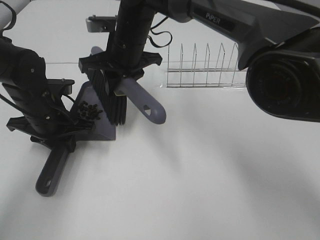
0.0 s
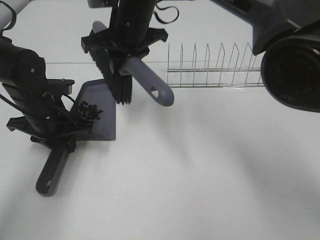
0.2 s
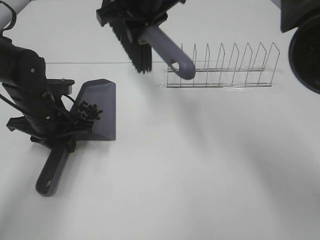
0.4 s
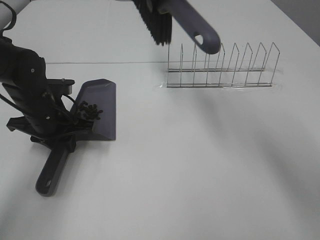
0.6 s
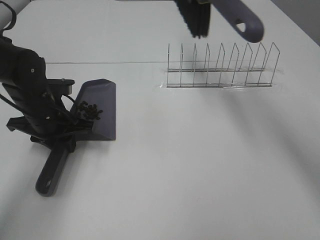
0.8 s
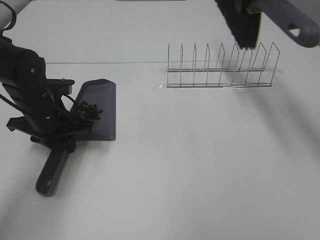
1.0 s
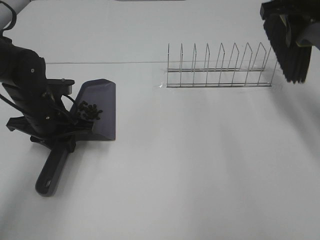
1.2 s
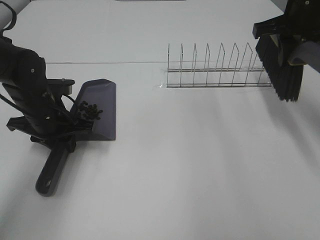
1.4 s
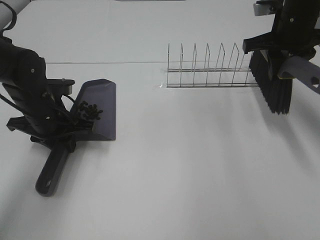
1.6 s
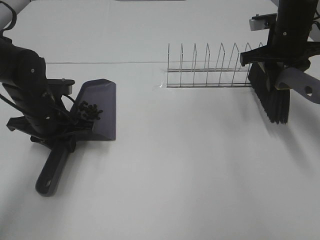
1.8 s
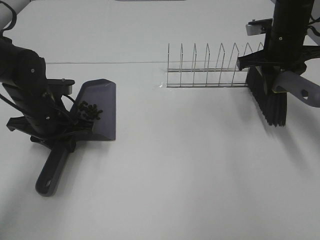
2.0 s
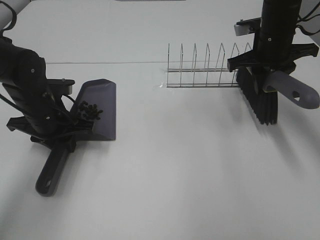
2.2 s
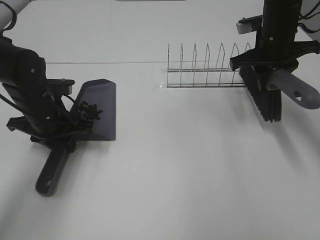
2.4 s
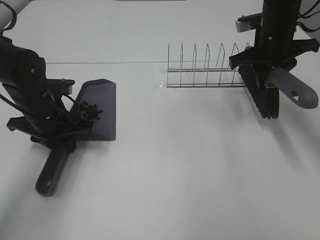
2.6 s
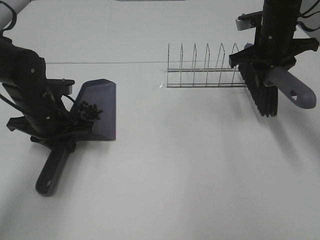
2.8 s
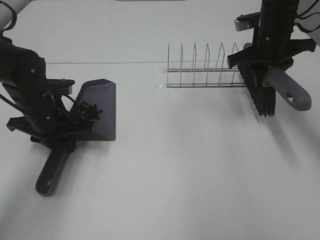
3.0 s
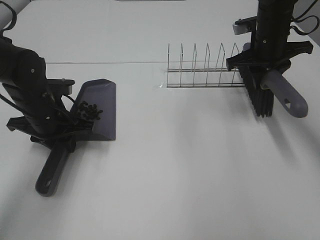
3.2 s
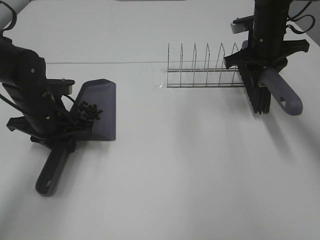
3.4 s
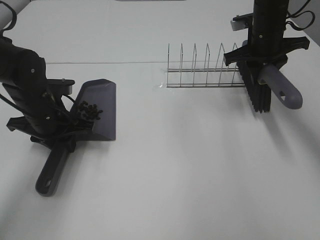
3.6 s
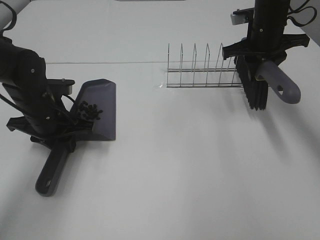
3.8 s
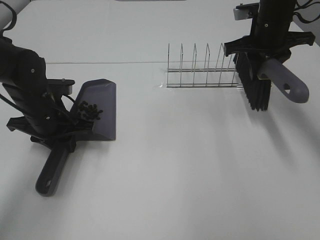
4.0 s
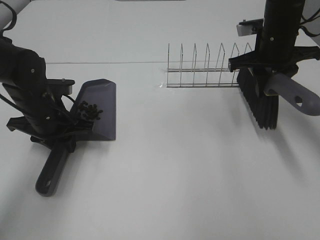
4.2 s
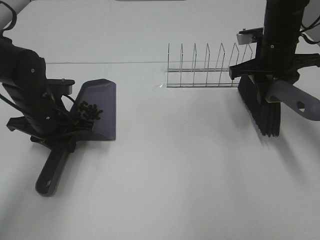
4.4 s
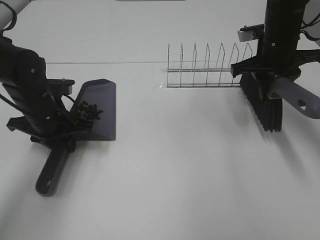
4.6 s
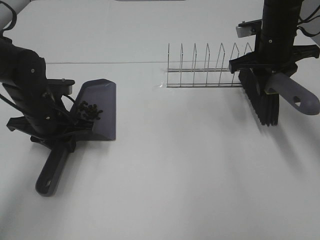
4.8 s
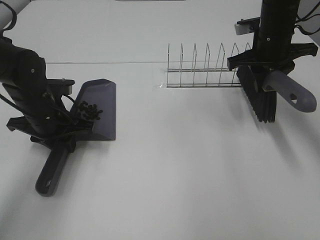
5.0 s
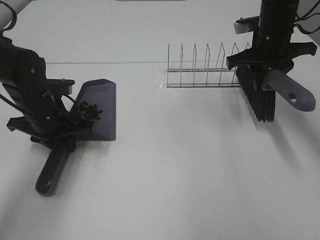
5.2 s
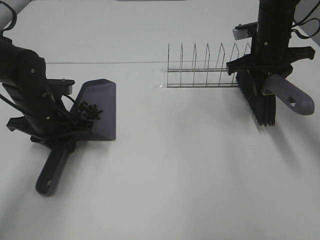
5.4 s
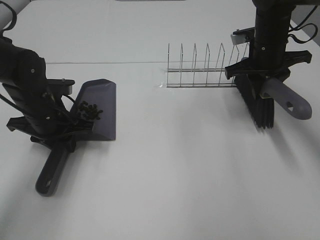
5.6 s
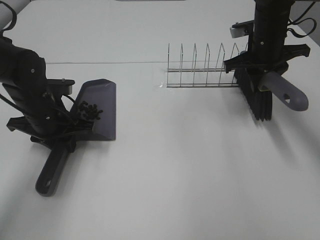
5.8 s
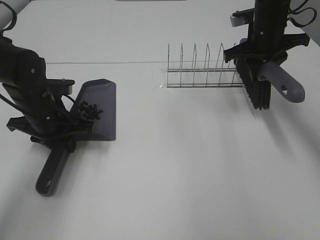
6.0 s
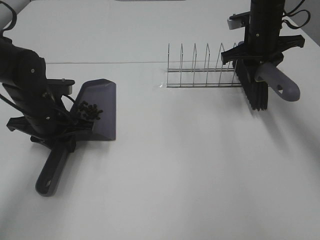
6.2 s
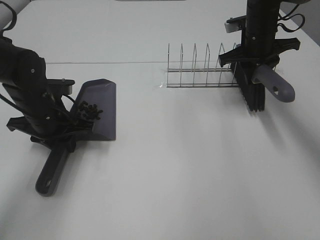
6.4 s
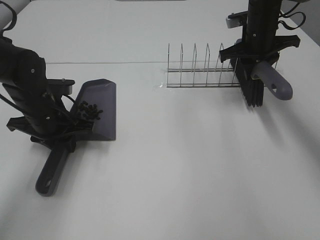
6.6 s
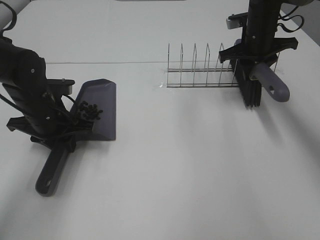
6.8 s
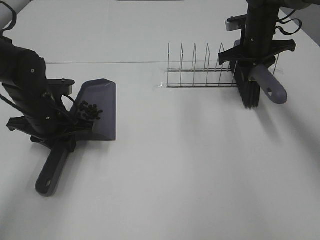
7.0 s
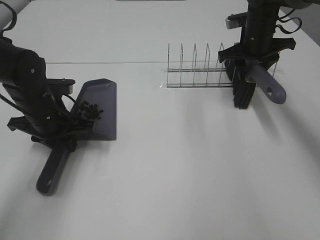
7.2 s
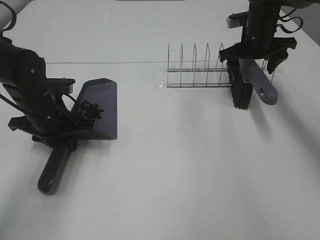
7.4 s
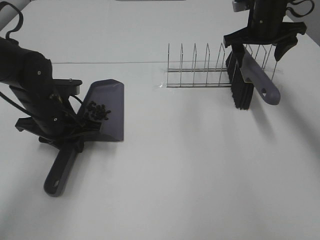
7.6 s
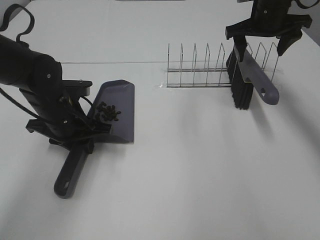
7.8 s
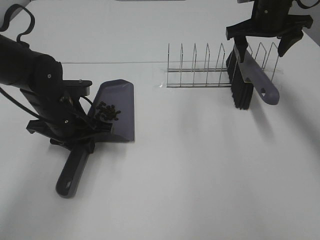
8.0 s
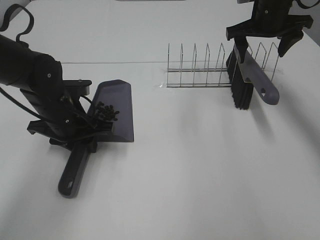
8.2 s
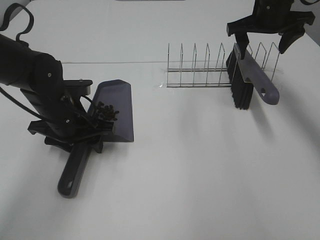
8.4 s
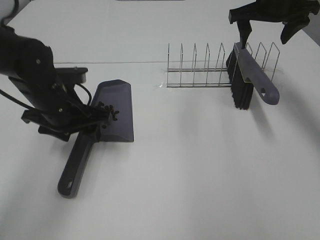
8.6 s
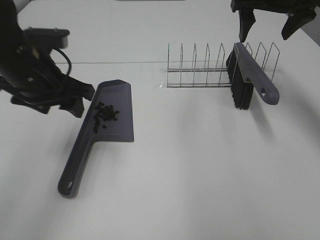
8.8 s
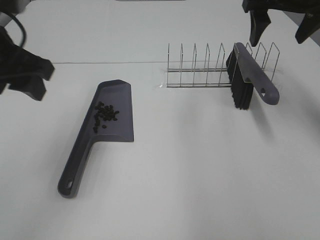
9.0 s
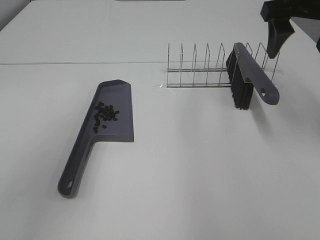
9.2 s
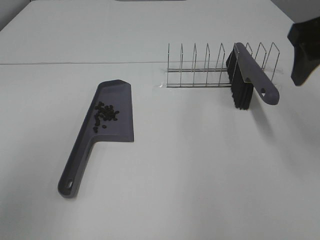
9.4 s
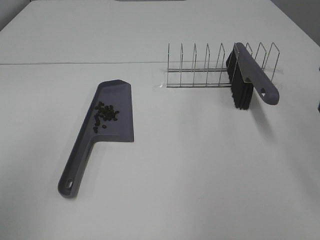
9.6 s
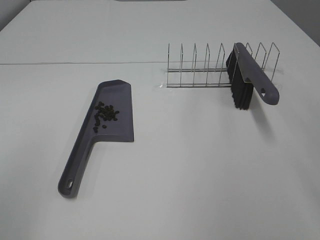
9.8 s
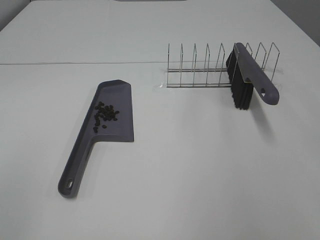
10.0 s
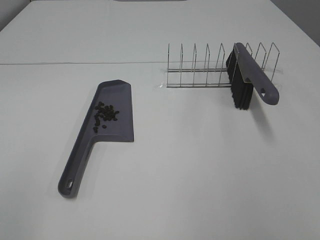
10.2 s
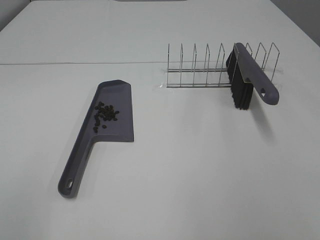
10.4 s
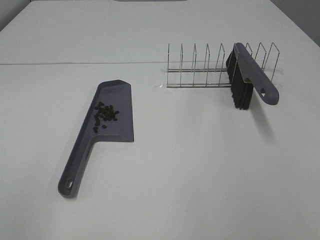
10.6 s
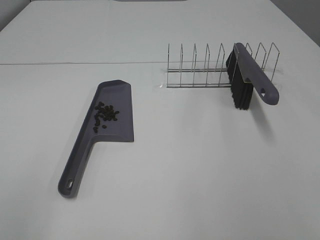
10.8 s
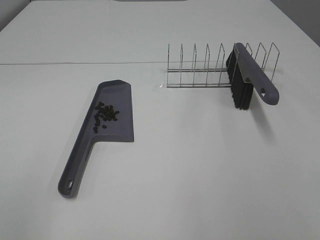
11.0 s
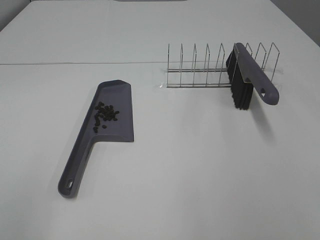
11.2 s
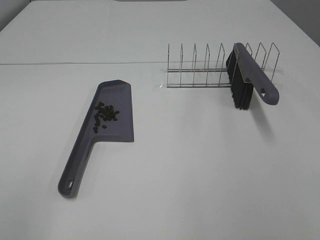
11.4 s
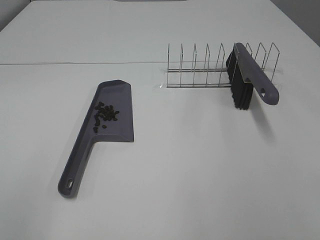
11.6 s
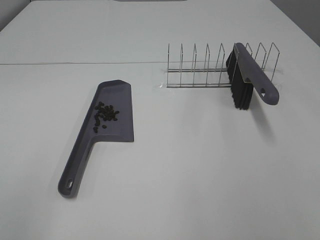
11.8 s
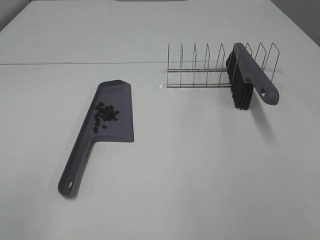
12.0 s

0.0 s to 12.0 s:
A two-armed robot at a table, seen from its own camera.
Task of the whole recording: Sweep Coffee Bean.
Step, 0.4 to 7.4 s: Right hand:place the broom on the rack.
Step, 7.6 to 8.4 s: Left hand:place the dustpan on the table.
0.0 to 1.6 s: The right gripper is displaced to the right by roughly 30 cm.
1.6 to 3.0 s: The right gripper moves about 5 cm.
3.0 to 4.4 s: The grippers move only a little.
4.4 to 6.0 s: The right gripper travels forward by roughly 5 cm.
6.0 to 7.6 s: The right gripper opens its fingers.
7.6 to 9.0 s: The left gripper moves upward, about 20 cm, and opens up, while the right gripper shifts roughly 15 cm upward and backward.
9.0 to 10.4 s: Both grippers move backward, about 30 cm.

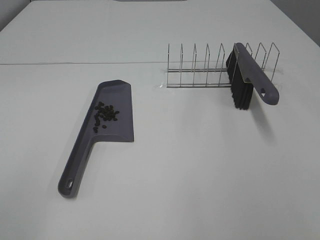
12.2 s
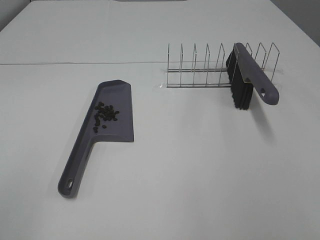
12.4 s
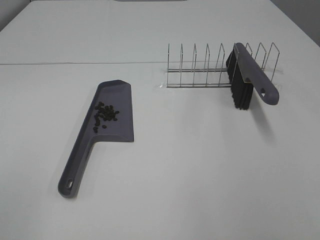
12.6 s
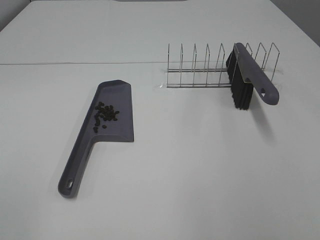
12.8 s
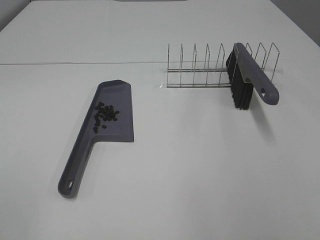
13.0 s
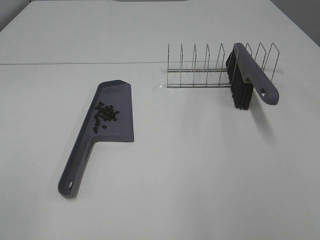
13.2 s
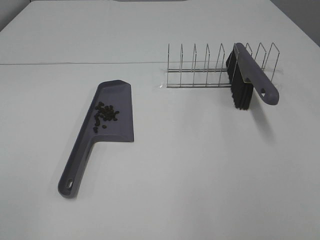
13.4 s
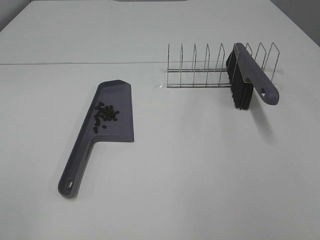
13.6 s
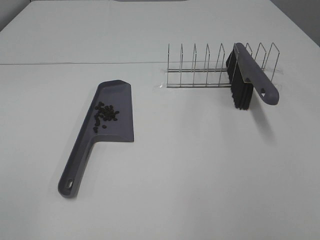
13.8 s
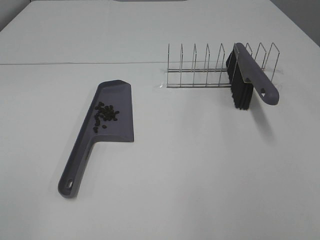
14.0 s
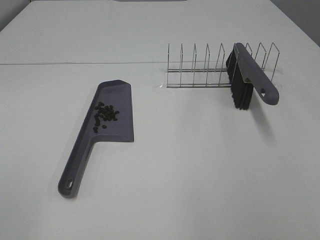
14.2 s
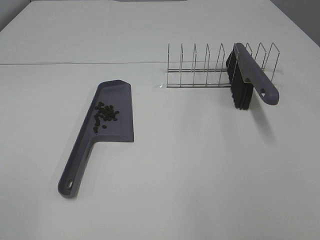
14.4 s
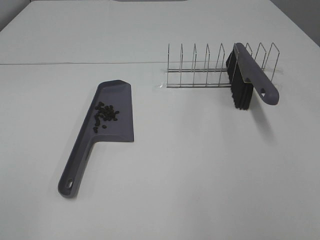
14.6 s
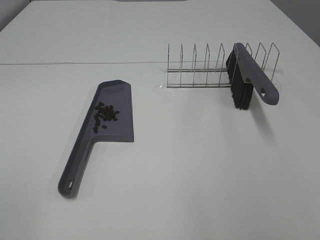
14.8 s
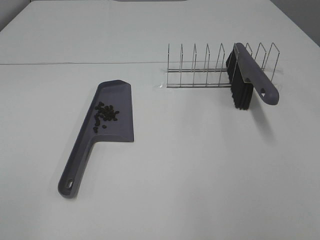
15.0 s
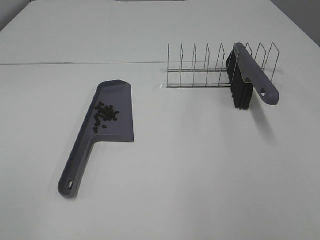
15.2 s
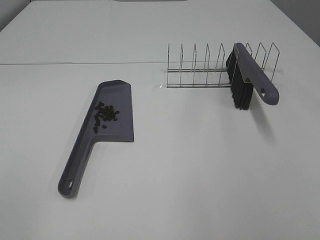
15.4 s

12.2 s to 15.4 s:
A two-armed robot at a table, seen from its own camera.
Task of the whole recording: Sweep Coffee Bean.
13.8 to 15.4 s: Both grippers stay put.

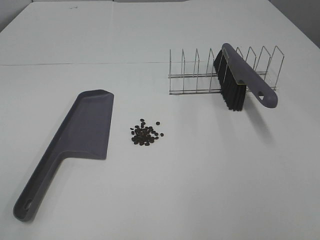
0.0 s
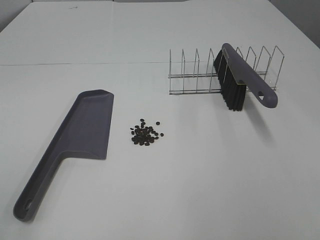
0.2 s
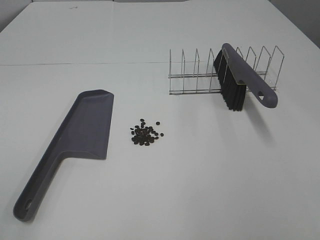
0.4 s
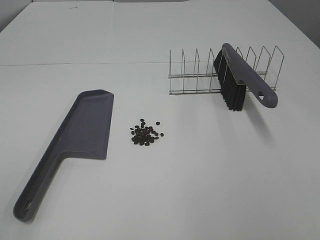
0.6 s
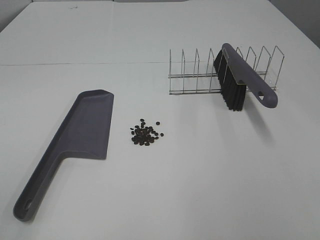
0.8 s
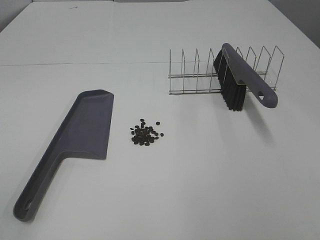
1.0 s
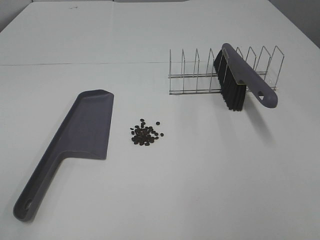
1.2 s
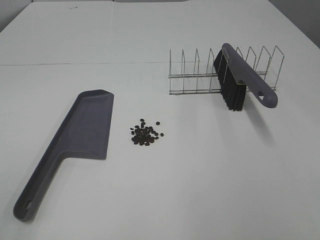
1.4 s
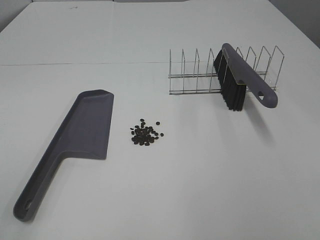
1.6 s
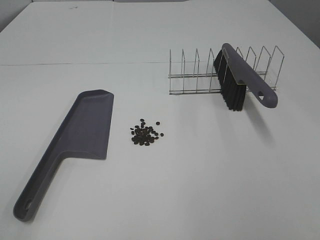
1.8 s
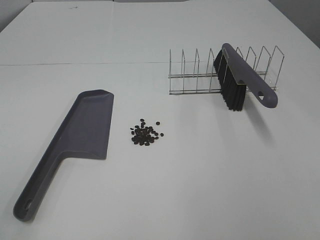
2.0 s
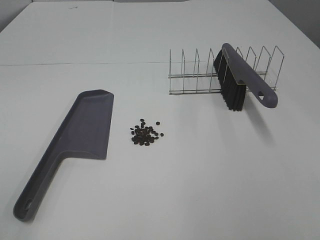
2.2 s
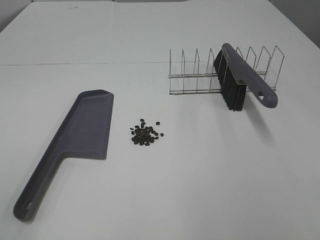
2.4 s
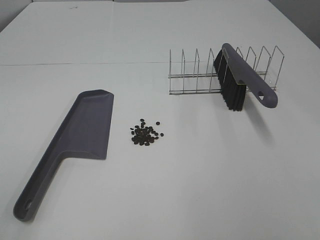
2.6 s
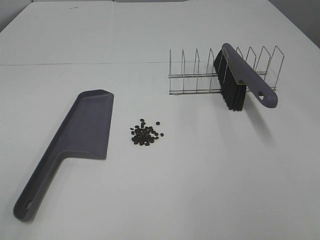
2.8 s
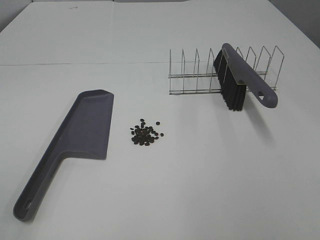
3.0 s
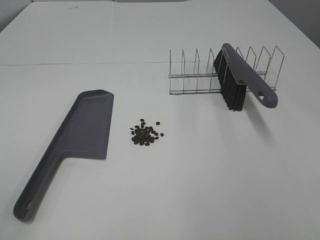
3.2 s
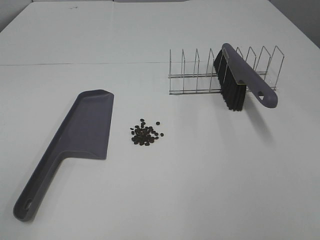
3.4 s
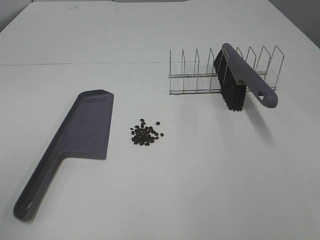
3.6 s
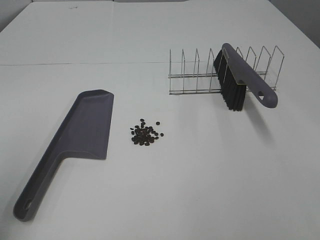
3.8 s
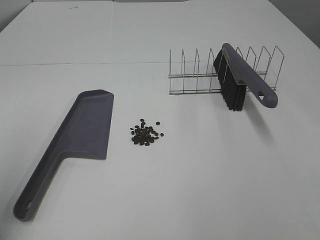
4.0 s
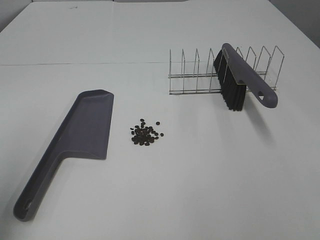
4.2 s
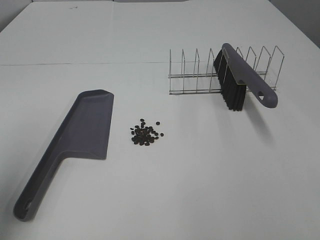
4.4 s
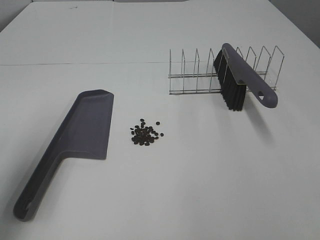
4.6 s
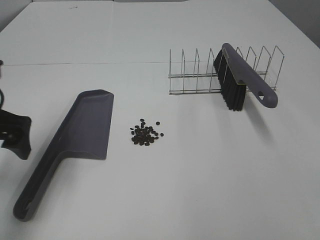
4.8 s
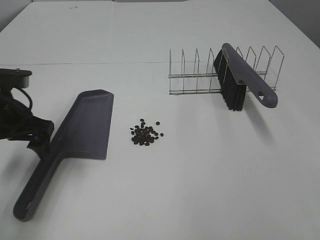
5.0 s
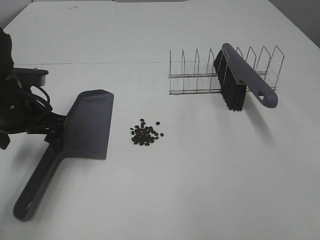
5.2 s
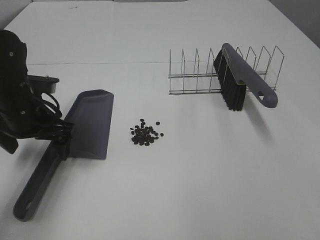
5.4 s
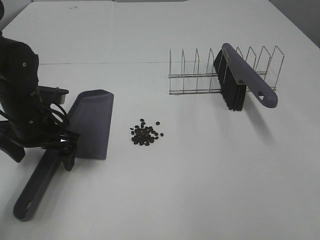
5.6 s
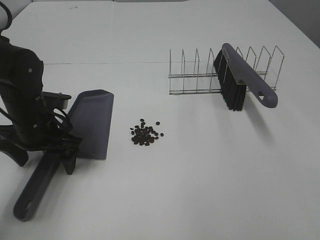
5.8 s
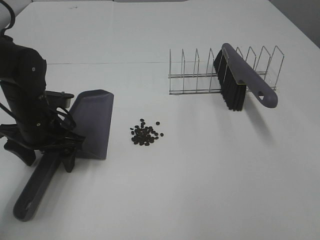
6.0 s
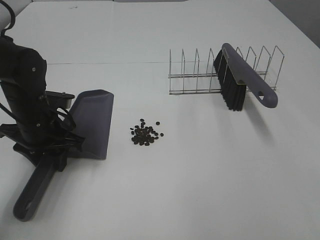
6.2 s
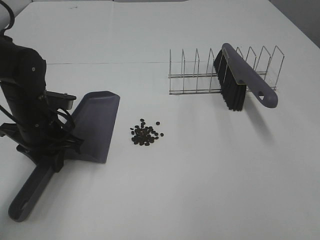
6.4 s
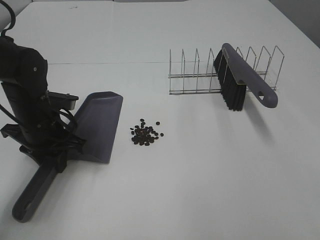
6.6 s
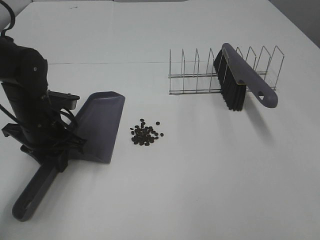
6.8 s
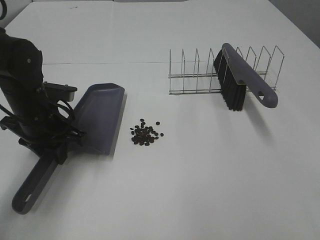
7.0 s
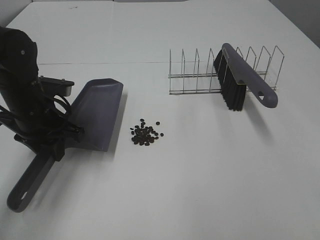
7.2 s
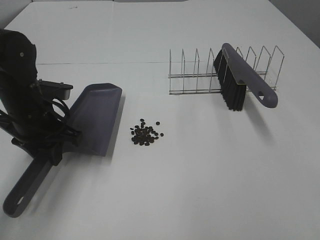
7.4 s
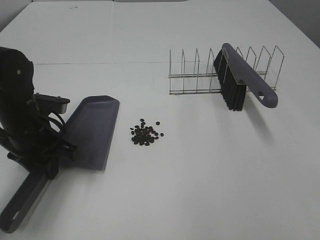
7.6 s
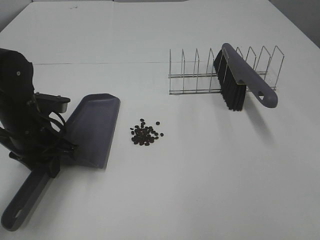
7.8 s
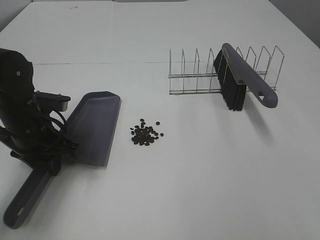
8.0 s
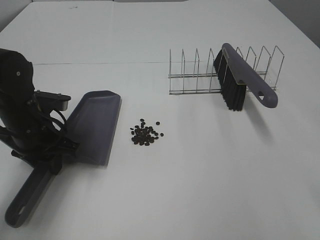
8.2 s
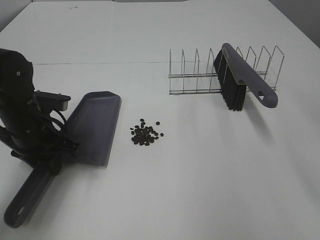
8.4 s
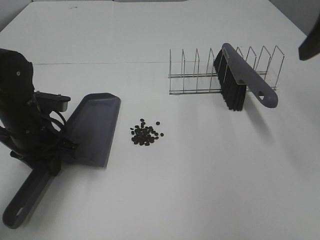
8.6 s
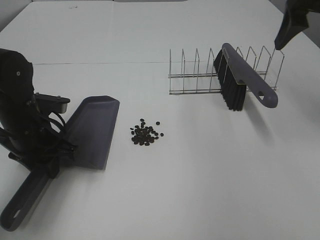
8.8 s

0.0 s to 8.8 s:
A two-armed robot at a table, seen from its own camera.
Task of the whole recording: Sweep Coffee Bean.
Step, 0.0 to 6.2 s: Left hand: grab the dustpan.
0.0 to 3.0 s: The two grippers keep their place.
3.0 to 4.4 s: The left gripper moves forward, approximately 15 cm.
4.4 to 5.8 s: The left gripper moves downward, forward and to the right, roughly 25 cm.
5.8 to 7.4 s: The left gripper closes.
7.4 to 8.8 s: The right gripper shifts some 35 cm forward.
